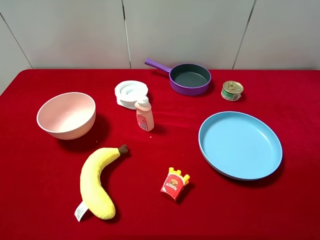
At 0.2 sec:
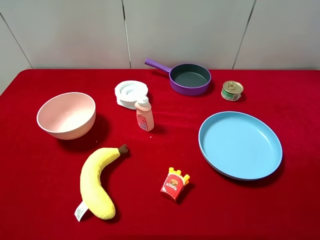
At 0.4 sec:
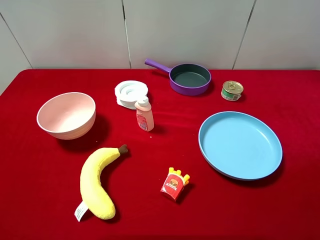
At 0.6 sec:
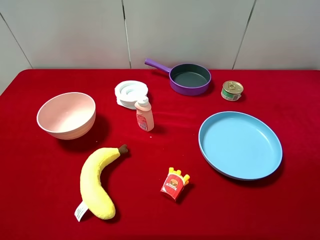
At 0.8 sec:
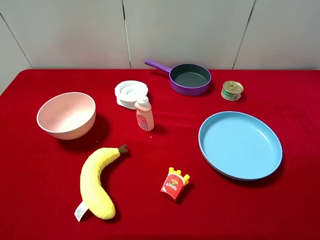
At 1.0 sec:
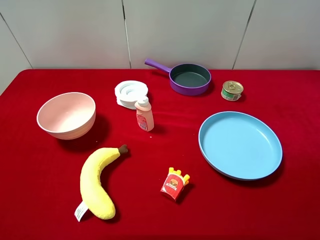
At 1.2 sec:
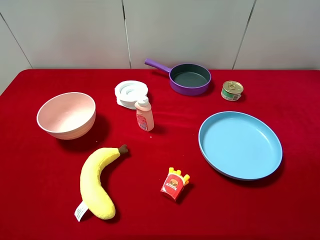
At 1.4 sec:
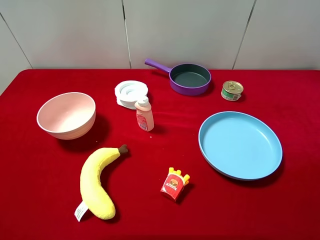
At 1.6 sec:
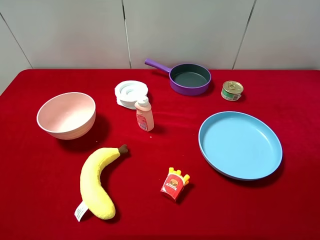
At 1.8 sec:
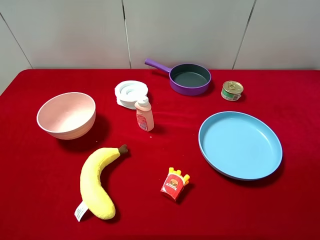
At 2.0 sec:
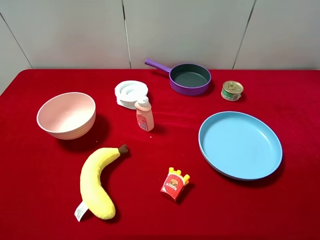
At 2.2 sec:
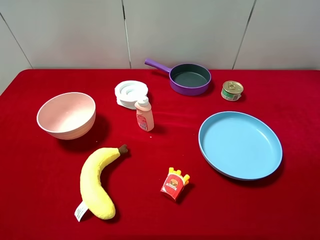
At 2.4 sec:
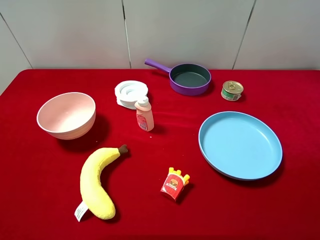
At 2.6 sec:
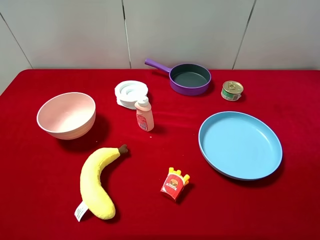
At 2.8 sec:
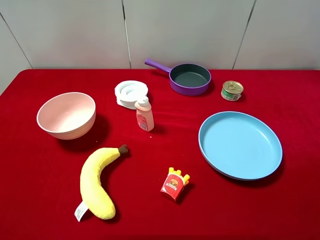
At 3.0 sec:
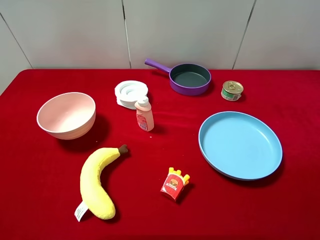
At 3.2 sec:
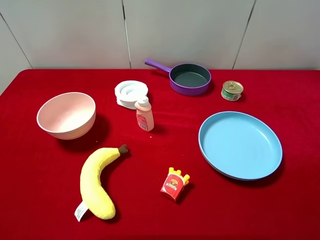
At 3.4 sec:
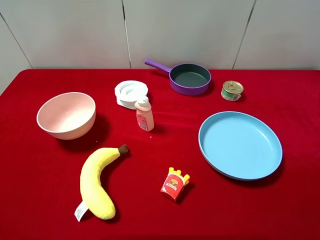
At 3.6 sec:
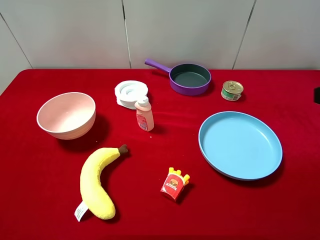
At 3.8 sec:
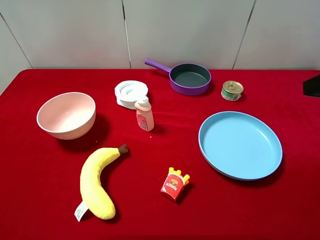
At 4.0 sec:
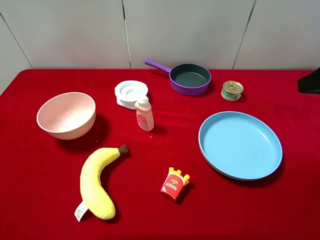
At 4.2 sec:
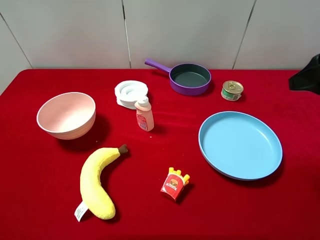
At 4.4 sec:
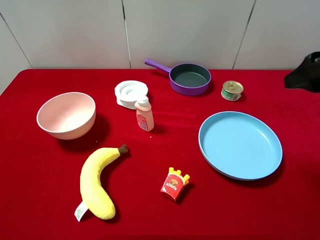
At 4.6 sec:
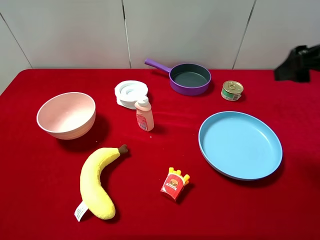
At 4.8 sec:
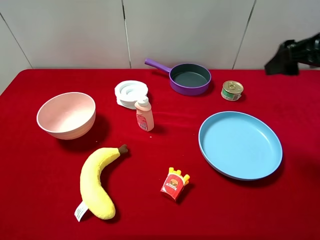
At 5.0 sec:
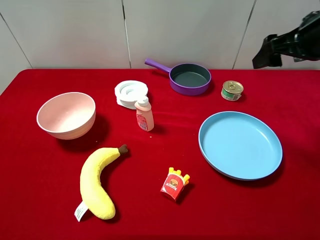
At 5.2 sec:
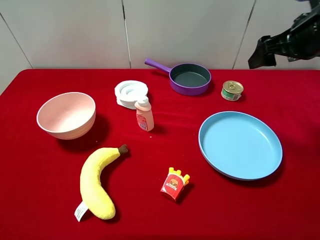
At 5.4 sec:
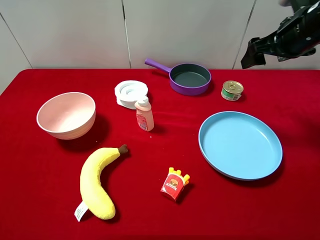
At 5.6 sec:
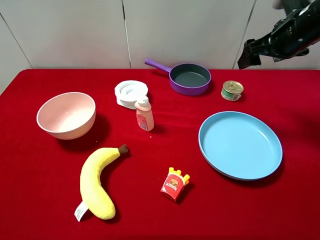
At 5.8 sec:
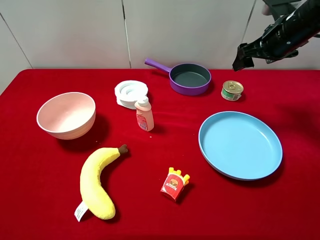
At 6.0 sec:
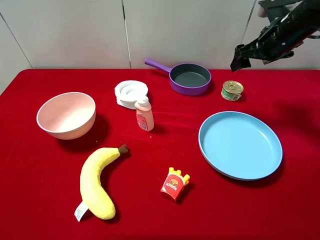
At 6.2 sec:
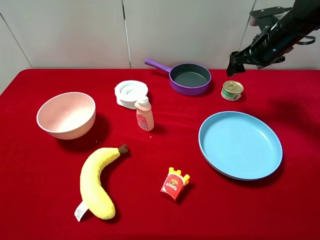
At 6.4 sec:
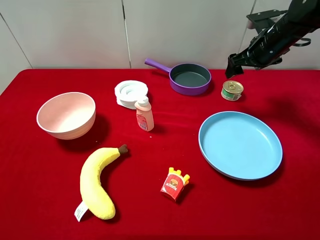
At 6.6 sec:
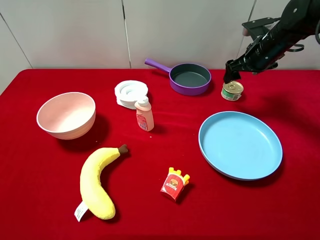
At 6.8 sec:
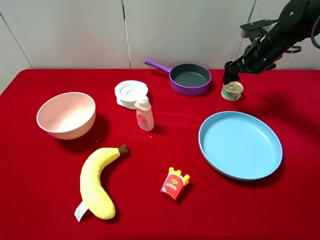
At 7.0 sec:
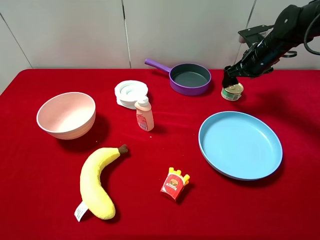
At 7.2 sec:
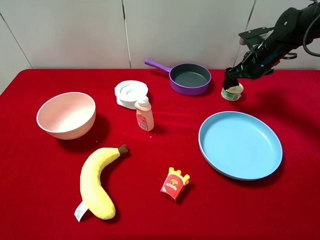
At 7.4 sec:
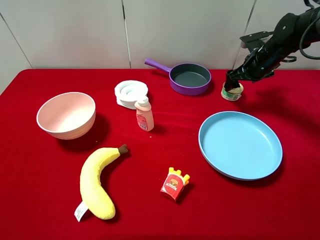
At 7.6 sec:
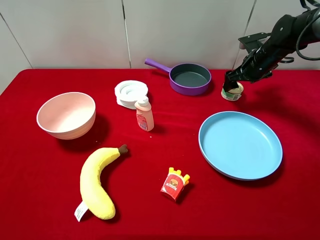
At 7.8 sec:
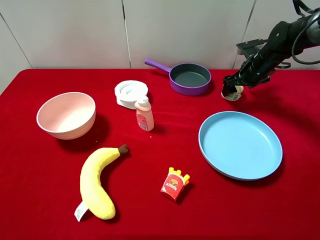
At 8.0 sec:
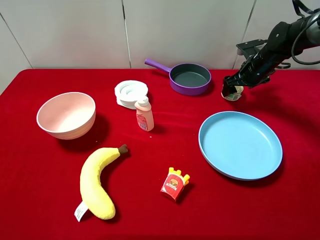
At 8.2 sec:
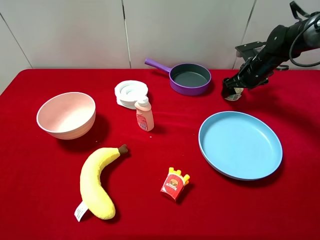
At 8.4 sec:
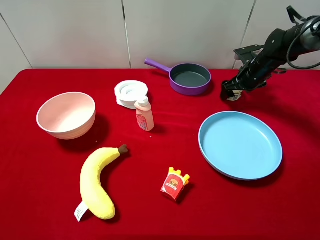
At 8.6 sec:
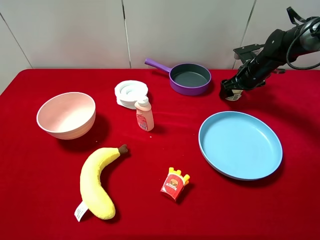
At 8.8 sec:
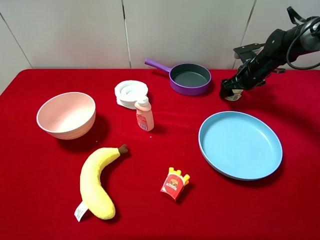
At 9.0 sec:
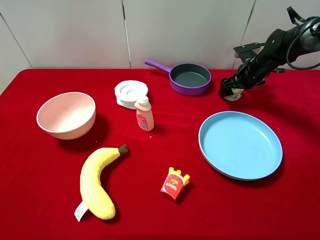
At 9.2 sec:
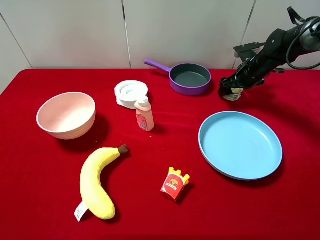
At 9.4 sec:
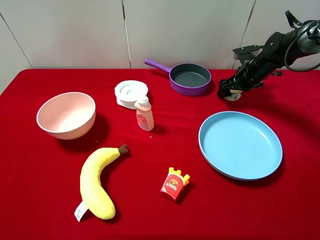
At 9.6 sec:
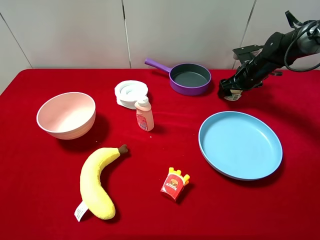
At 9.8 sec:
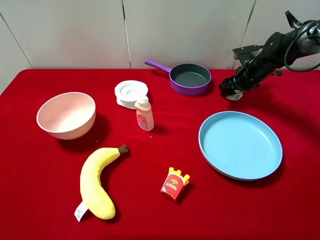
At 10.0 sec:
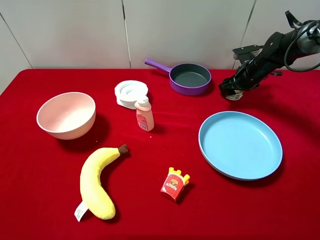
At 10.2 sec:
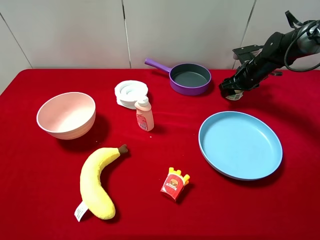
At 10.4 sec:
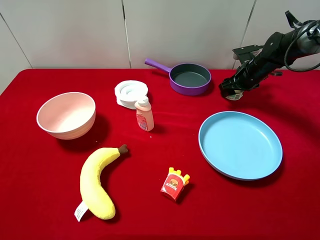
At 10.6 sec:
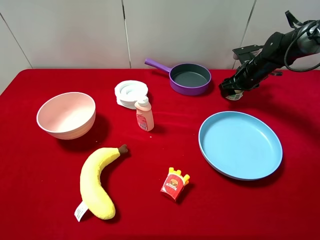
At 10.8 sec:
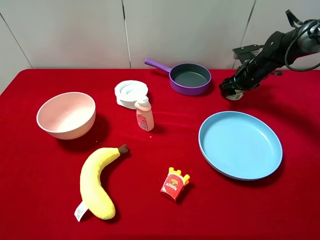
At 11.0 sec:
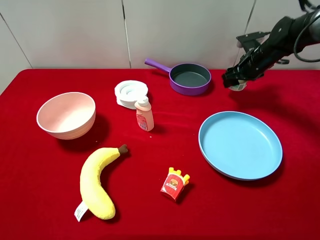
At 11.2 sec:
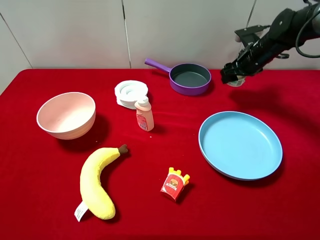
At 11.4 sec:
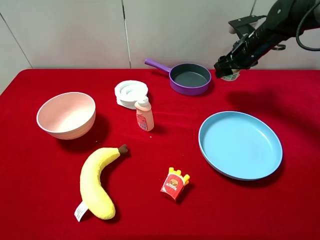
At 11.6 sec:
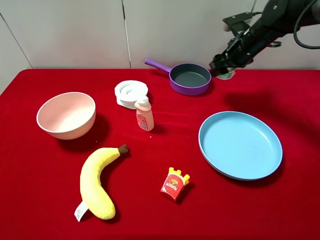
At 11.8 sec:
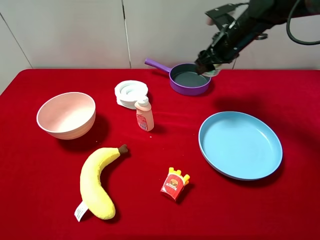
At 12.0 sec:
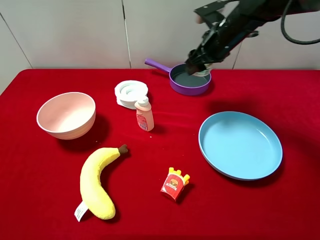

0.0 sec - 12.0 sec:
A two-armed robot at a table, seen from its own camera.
Task of the whole recording: pick up an item with a gripper and place it in a random container on the desktop.
0.0 sec - 1.6 sec: Both grippers stay put.
3.0 sec - 4.4 sec: The right gripper shifts about 15 cm forward.
4.4 sec - 6.0 sec: The right gripper is displaced forward by about 20 cm.
6.0 sec - 7.6 sec: The right gripper heads downward and forward, covering roughly 10 cm.
7.6 sec - 9.0 sec: The grippers move only a little.
9.0 sec - 10.4 sec: The right gripper closes.
10.4 sec - 12.0 sec: The right gripper moves to the left, upward and backward, approximately 20 cm.

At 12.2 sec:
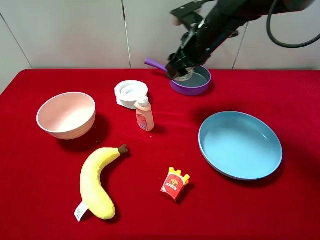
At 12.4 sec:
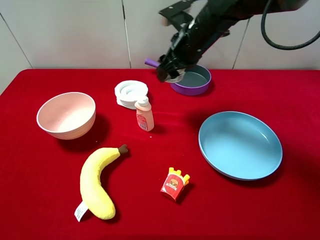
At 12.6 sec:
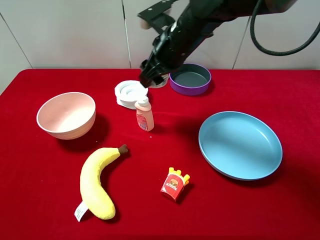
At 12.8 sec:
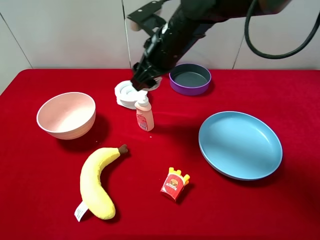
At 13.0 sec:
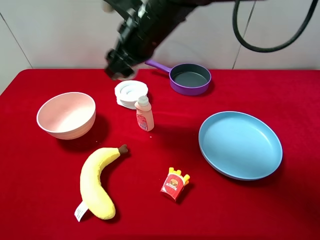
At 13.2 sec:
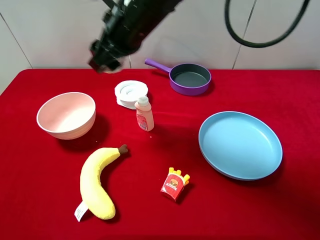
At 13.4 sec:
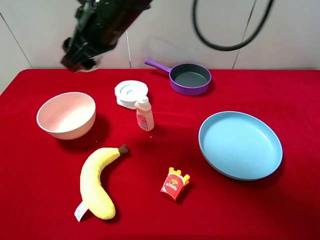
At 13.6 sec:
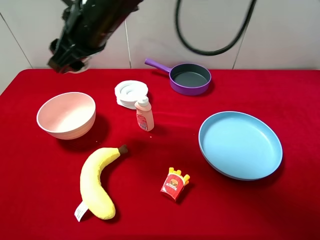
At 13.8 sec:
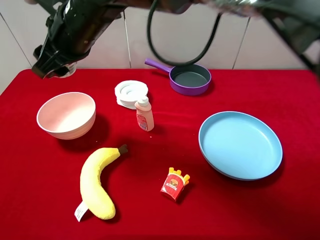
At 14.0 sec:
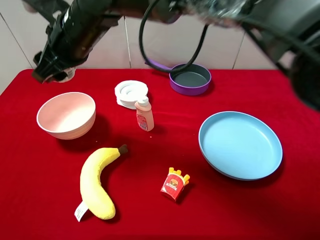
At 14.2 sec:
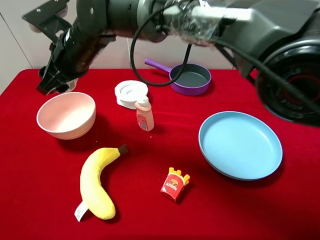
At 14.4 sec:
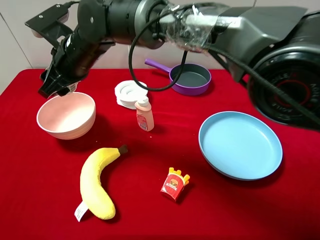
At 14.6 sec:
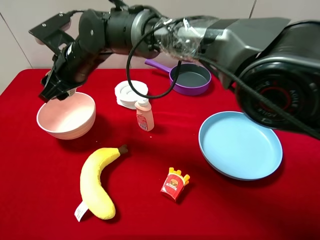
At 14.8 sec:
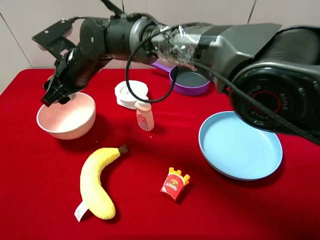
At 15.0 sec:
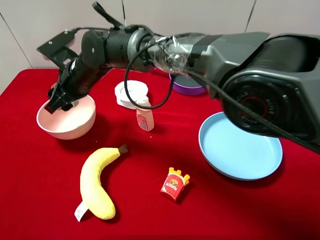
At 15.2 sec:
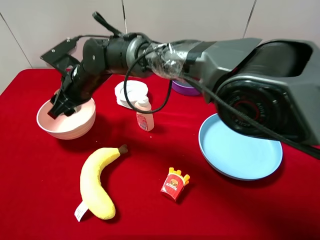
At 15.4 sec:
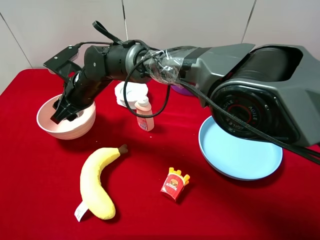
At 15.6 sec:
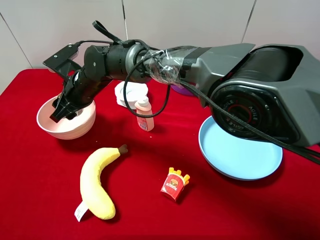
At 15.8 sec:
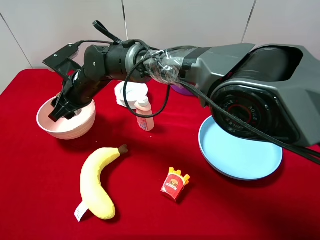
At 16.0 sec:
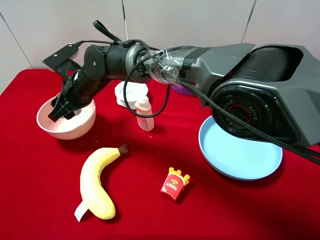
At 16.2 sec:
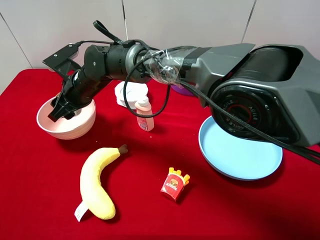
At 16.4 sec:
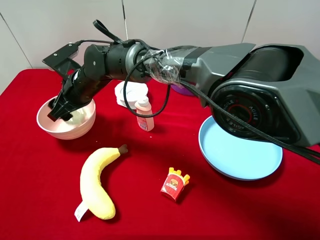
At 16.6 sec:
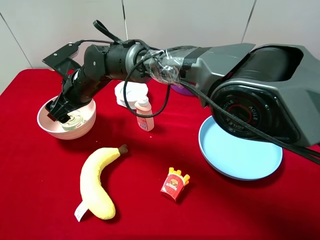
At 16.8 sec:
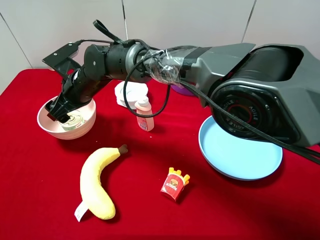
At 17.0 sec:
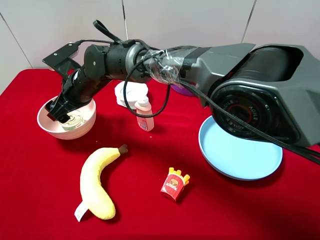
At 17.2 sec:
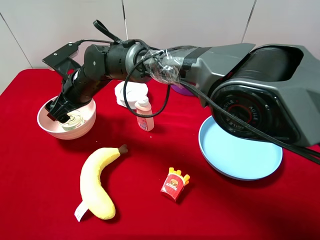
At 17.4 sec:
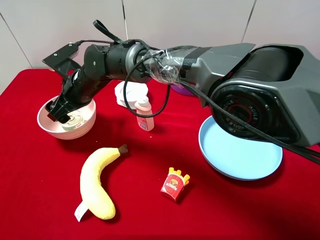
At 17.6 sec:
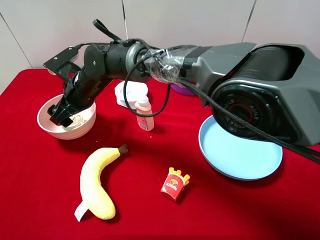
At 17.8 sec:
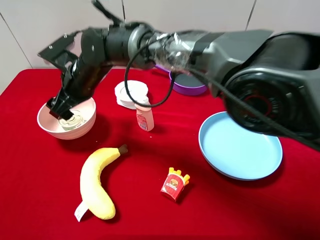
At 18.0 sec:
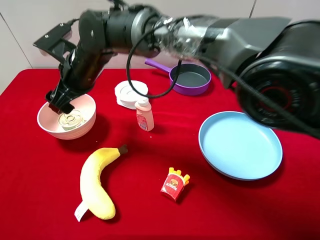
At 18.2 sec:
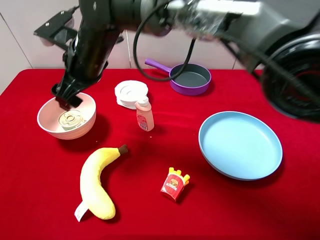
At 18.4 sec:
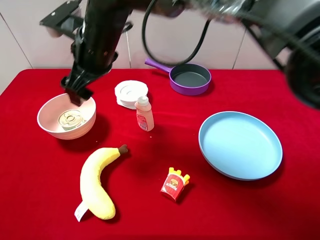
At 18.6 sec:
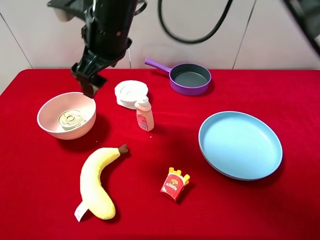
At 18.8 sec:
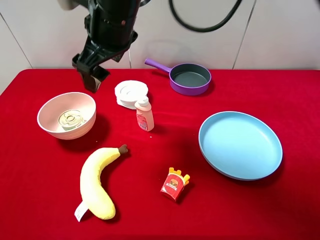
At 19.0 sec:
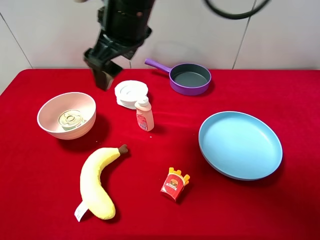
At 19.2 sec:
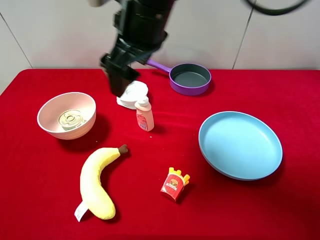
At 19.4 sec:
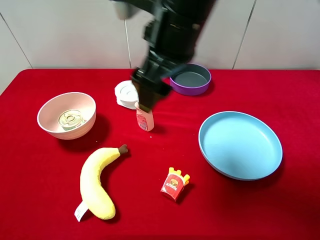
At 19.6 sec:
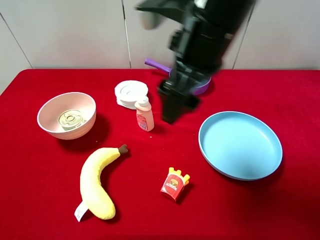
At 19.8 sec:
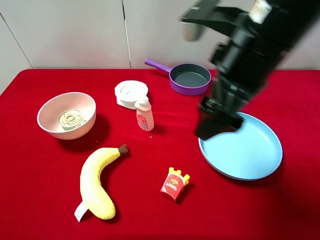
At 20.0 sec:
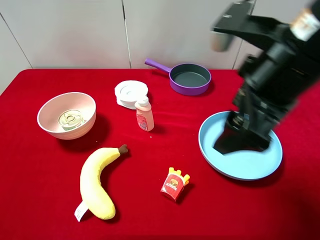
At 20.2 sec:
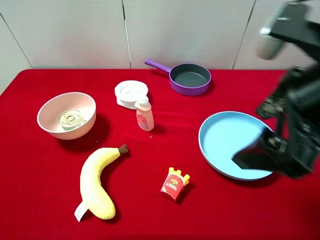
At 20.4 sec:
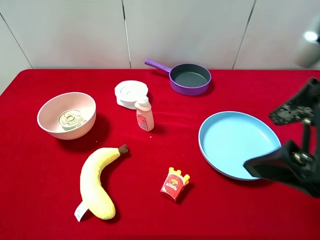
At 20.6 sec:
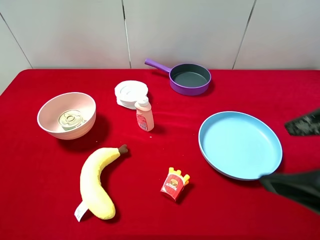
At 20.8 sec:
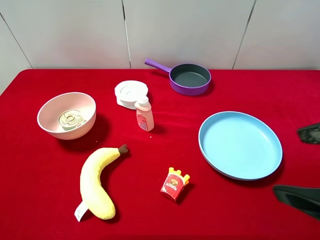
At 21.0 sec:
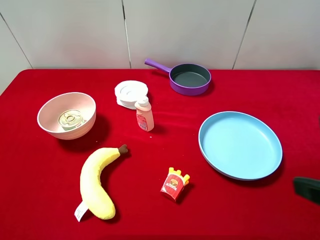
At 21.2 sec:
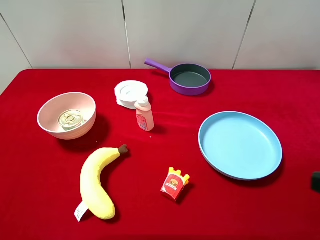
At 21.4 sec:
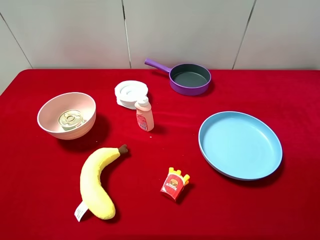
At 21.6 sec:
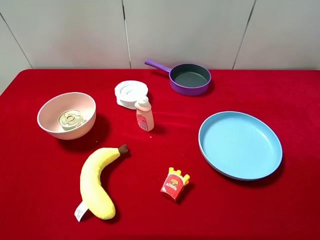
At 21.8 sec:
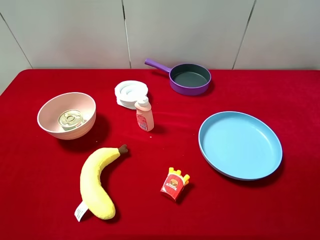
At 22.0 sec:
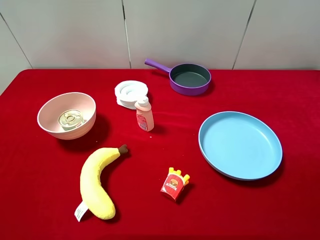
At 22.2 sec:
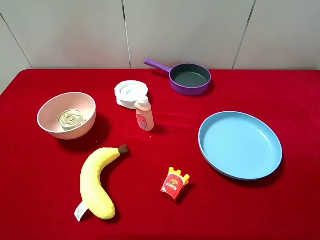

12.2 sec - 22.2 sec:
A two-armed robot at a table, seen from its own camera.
Task of the whole recording: pick up an item with a gripper and place it in a random container on the desktop.
12.2 sec - 13.6 sec: The right gripper is displaced to the left and backward by roughly 20 cm.
13.6 sec - 15.0 sec: The right gripper travels downward and to the left by some 15 cm.
15.0 sec - 16.4 sec: The right gripper opens up.
16.4 sec - 18.0 sec: The right gripper goes some 5 cm upward.
18.0 sec - 19.4 sec: The right gripper shifts approximately 20 cm to the right, upward and backward.
19.4 sec - 20.8 sec: The right gripper heads to the right and backward, covering approximately 25 cm.
20.8 sec - 22.2 sec: The right gripper ends up approximately 5 cm from where it was.
